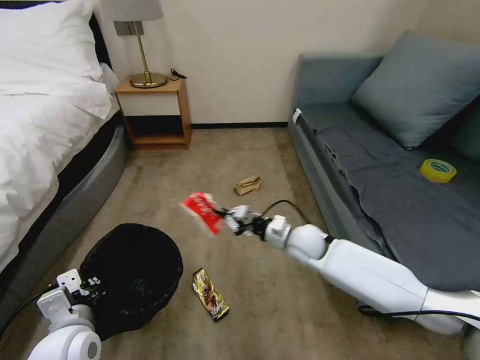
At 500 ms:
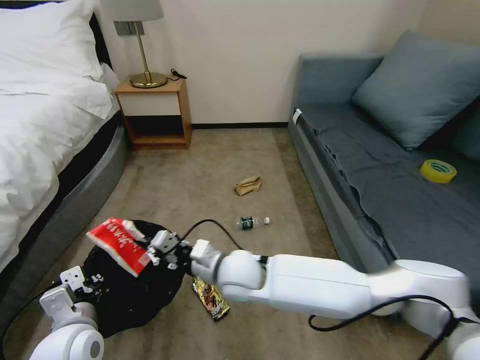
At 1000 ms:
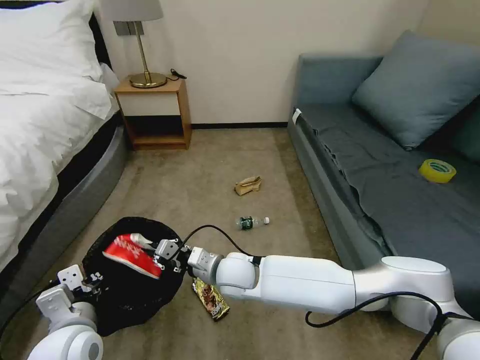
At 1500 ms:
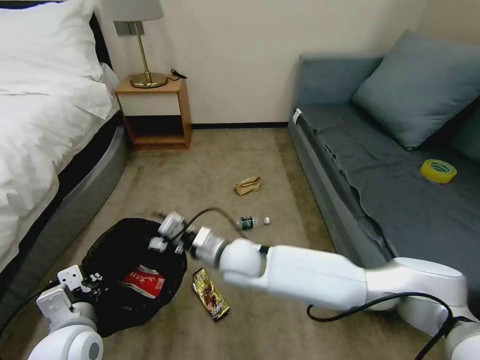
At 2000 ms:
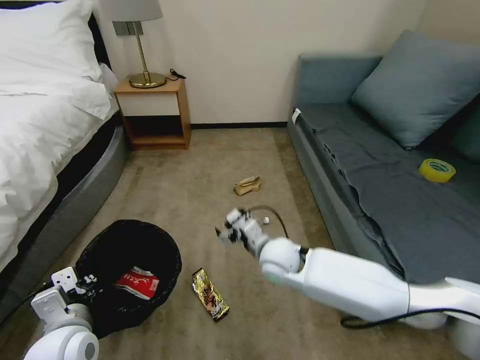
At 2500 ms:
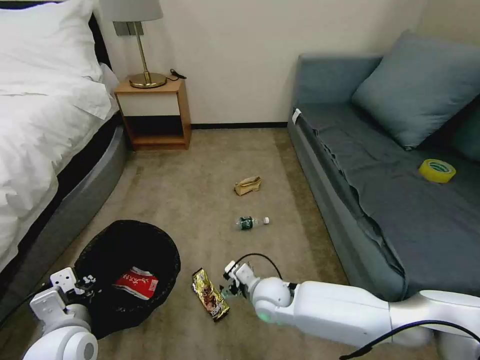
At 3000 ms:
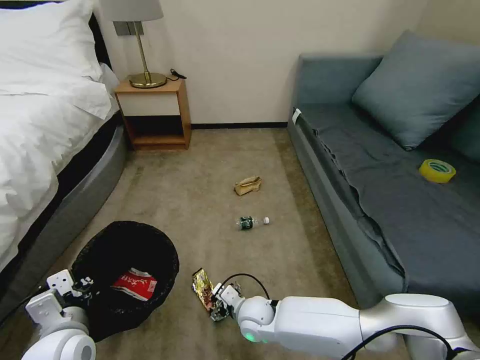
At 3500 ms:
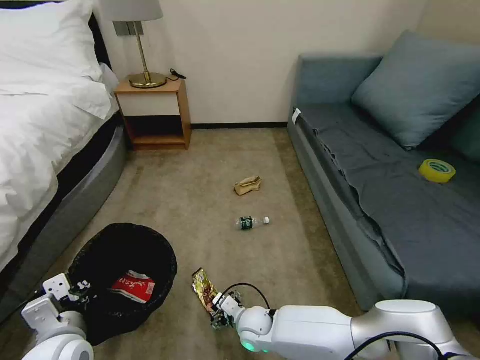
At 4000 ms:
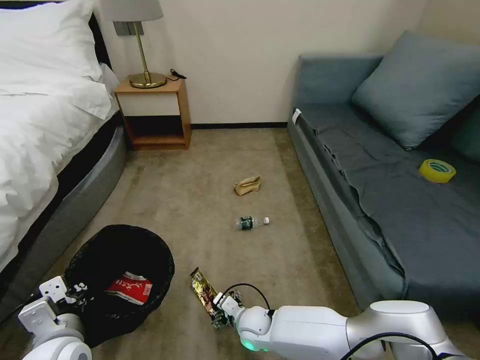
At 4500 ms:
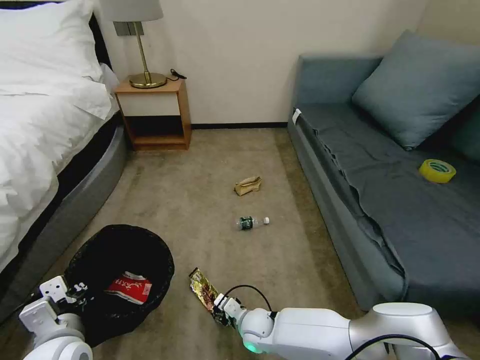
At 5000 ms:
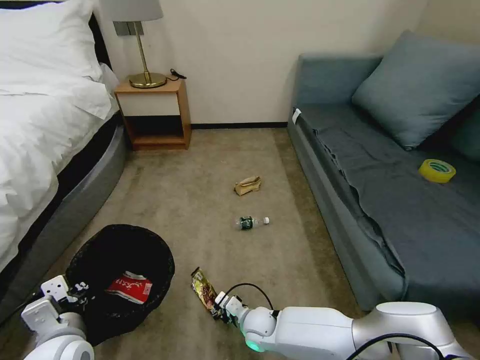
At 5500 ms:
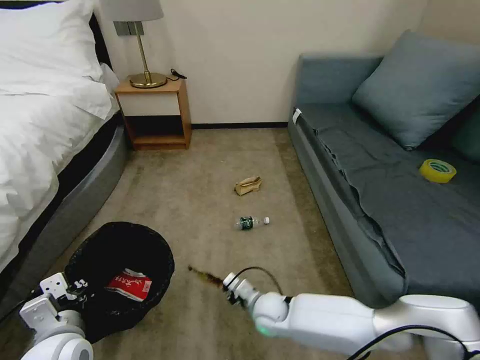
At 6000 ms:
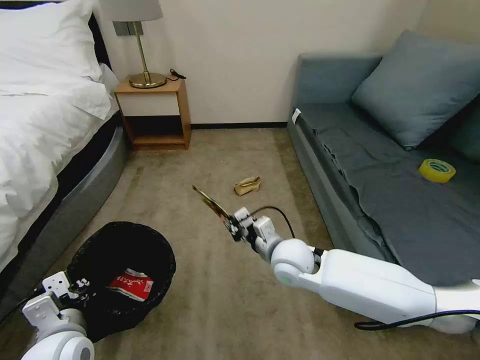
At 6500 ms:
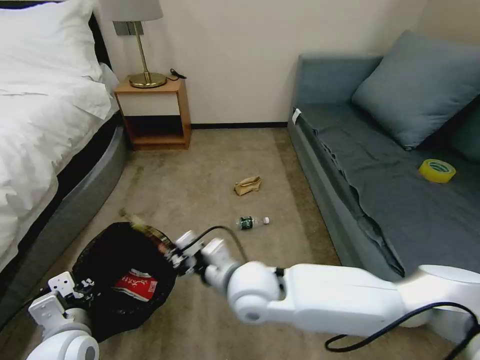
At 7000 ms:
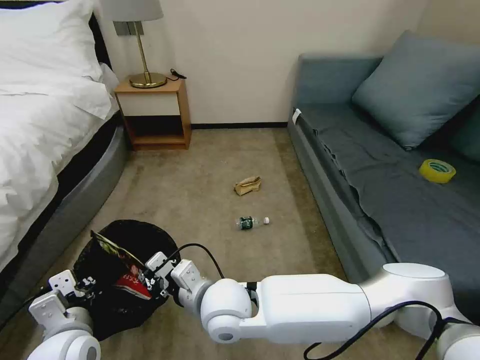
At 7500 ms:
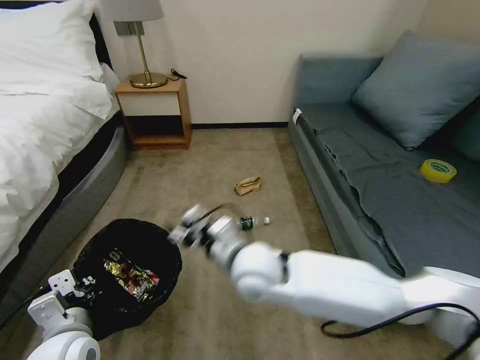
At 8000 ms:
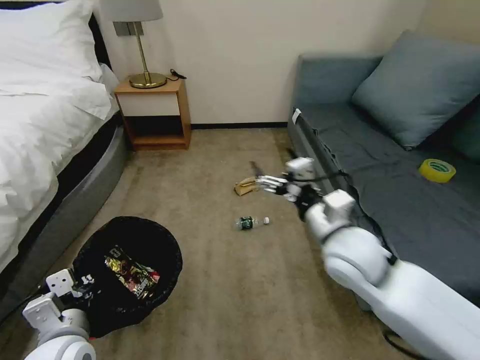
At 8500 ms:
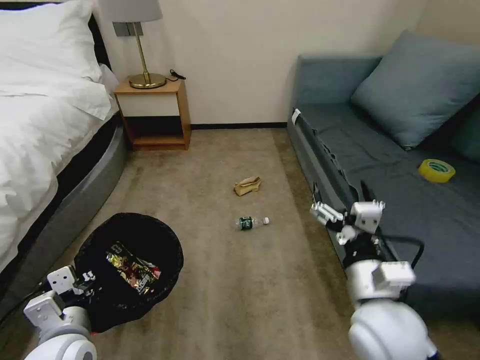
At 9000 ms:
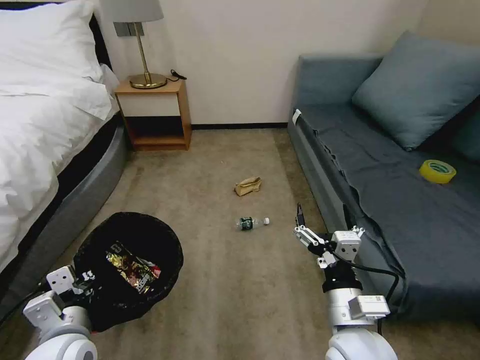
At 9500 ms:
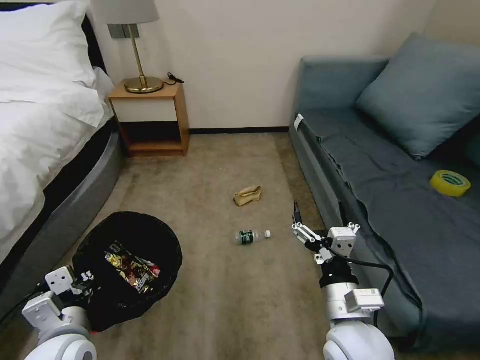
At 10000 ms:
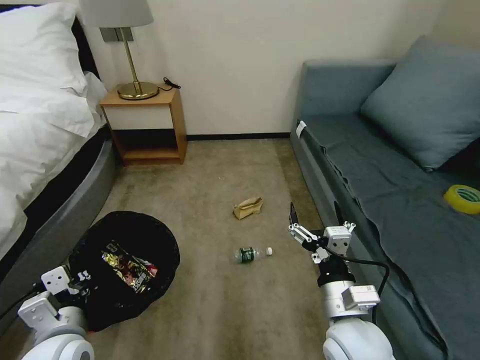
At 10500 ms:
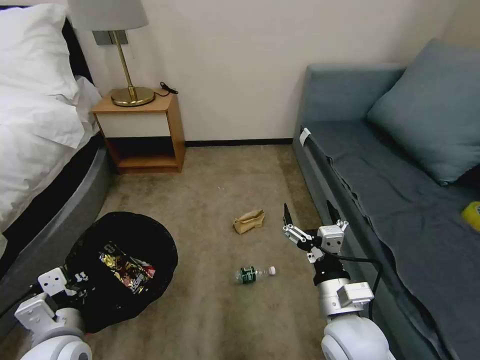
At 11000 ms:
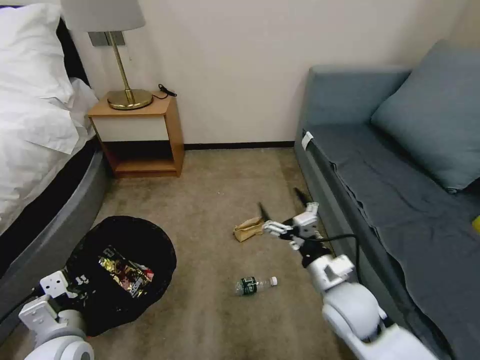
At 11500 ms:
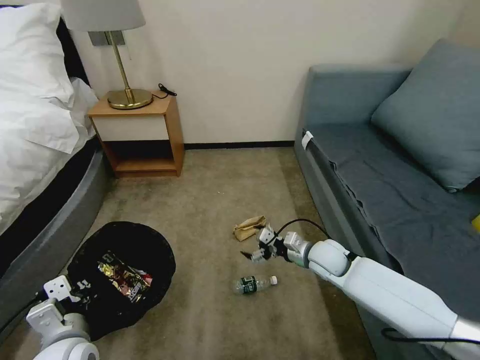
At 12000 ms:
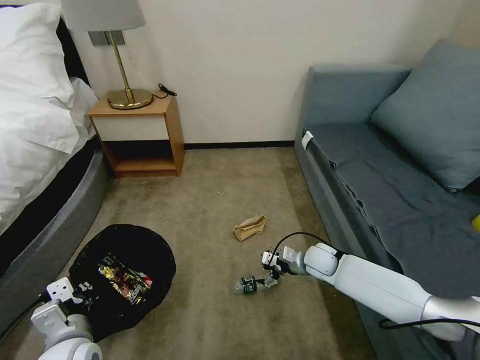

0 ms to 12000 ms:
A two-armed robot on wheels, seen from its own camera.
Task of the whole recording: Pick up the trash bin, then pick up the garbage on the floor and place it into the trash bin.
0 ms to 2000 ms: The right gripper moves to the left and backward, approximately 10 cm, and opens up.
2000 ms to 4000 ms: The right gripper goes roughly 20 cm downward and backward.
4000 ms to 6000 ms: The right gripper shifts some 20 cm upward, and closes.
6000 ms to 8000 ms: The right gripper shifts some 10 cm upward, reaches approximately 15 cm to the left, then returns, and opens.
8000 ms to 10000 ms: The right gripper goes some 15 cm backward and downward.
10000 ms to 12000 ms: The right gripper shifts approximately 30 cm forward and downward.

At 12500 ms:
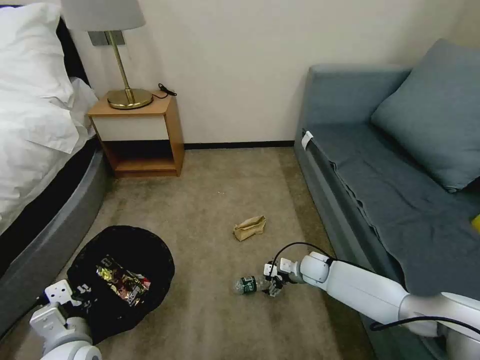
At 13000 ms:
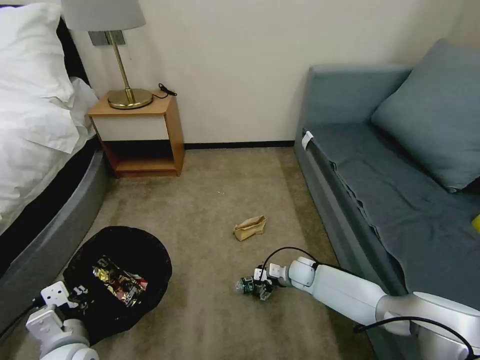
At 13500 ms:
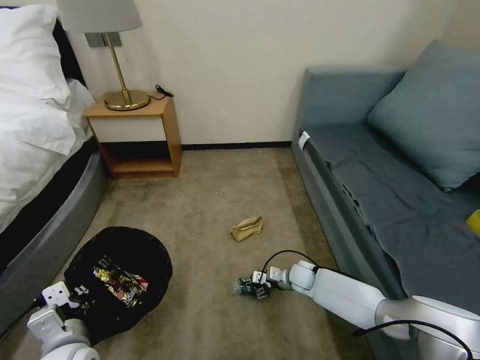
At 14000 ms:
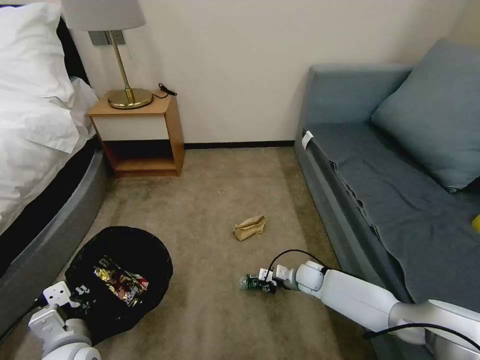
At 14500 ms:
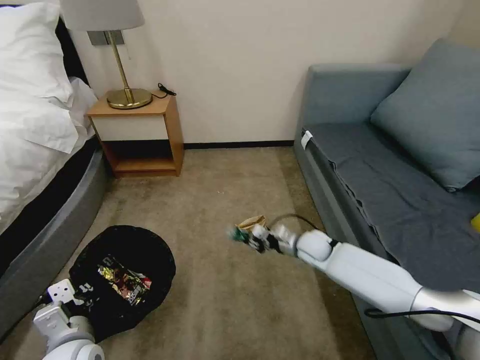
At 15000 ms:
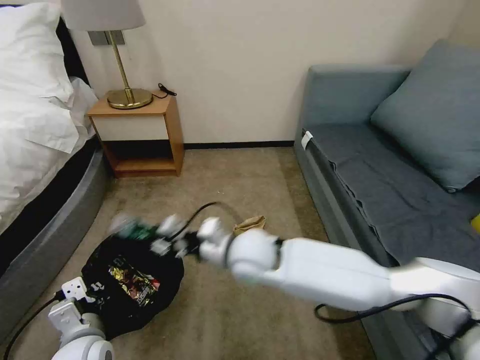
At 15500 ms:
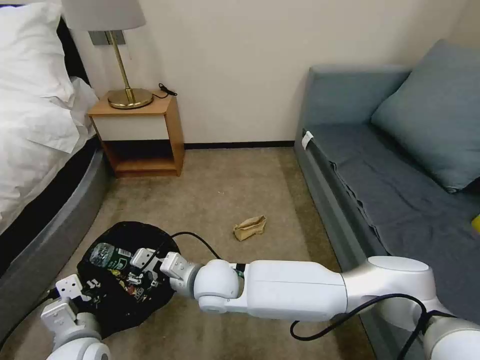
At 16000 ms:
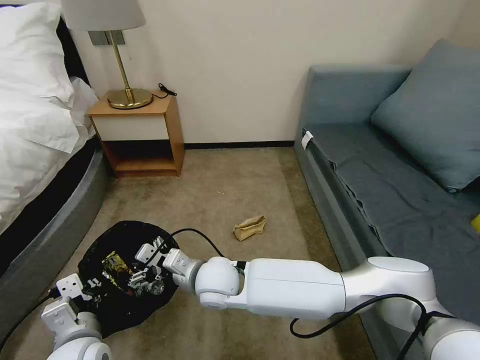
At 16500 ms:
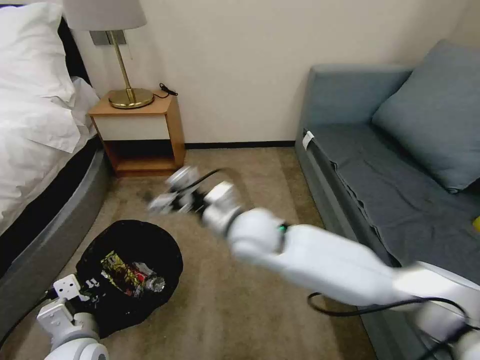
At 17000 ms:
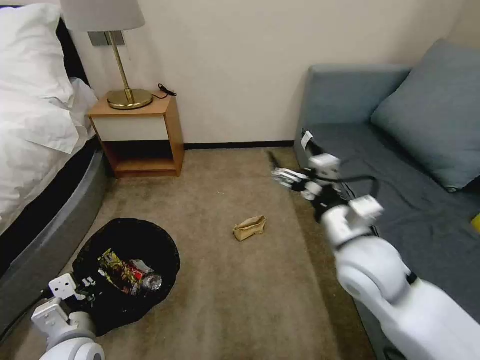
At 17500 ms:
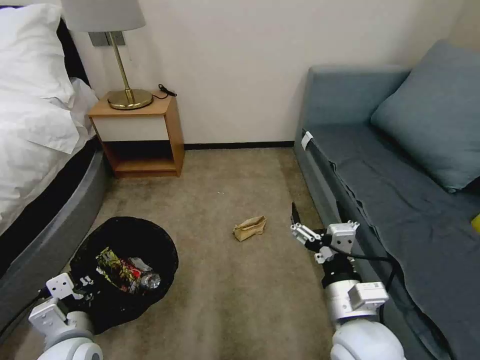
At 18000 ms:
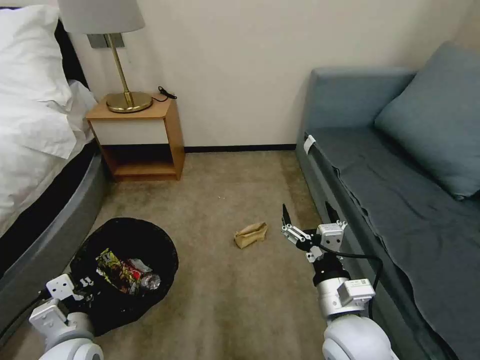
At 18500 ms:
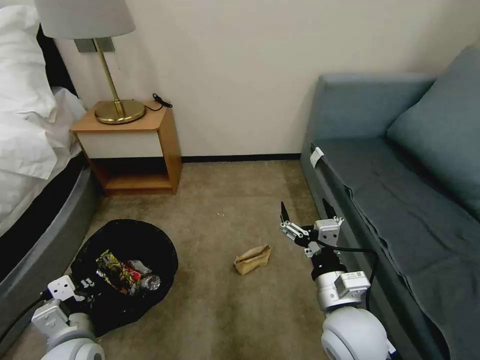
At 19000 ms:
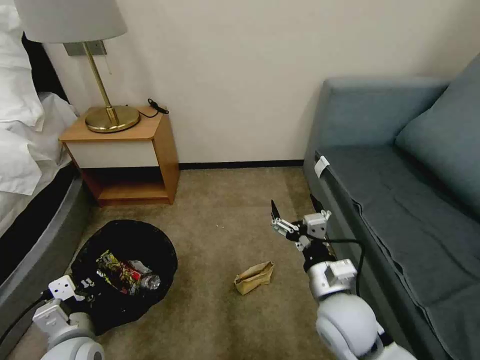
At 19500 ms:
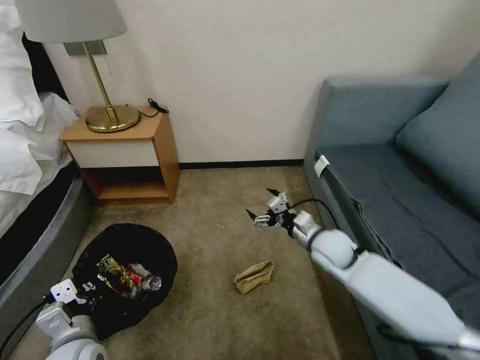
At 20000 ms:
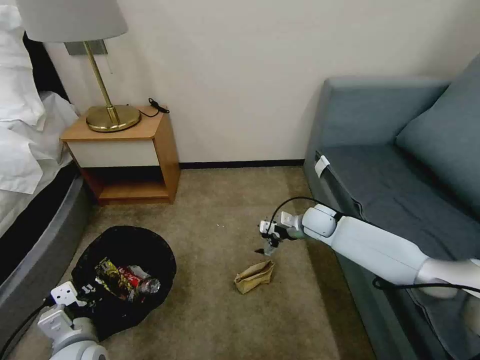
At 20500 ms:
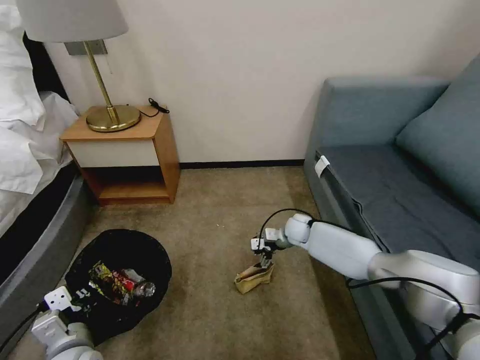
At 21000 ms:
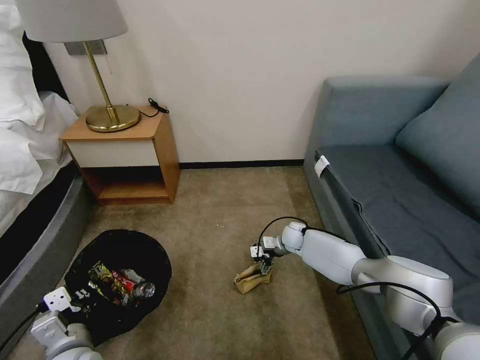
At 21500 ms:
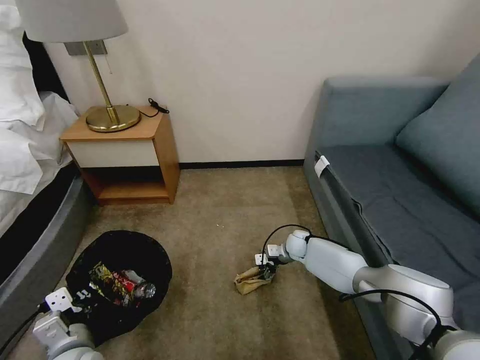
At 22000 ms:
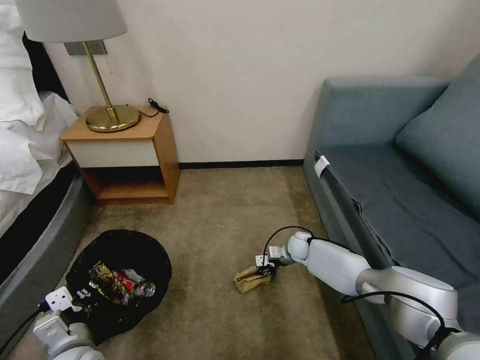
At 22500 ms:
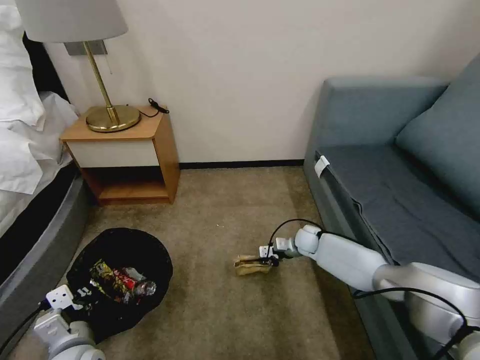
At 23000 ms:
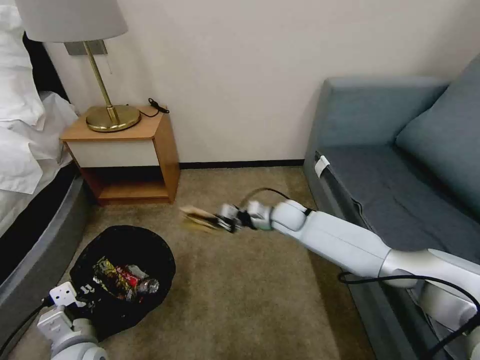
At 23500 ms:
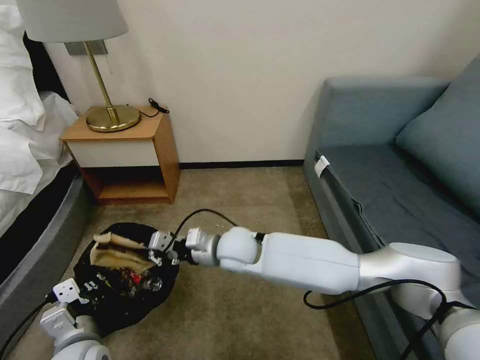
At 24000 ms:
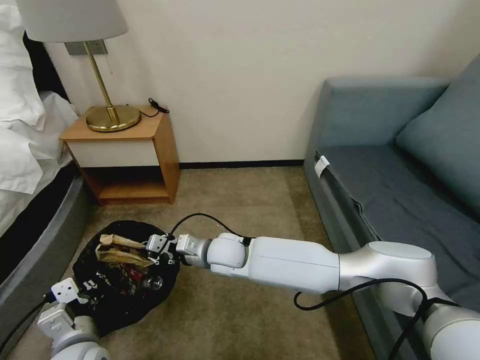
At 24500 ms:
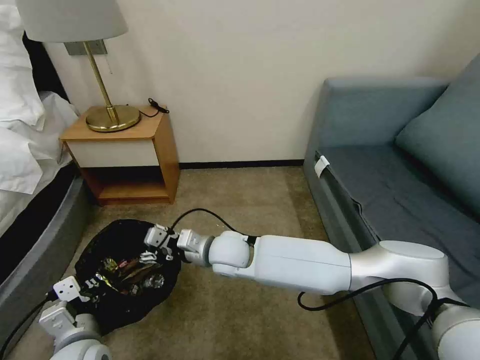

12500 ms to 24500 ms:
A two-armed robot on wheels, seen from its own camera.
Task of the whole recording: Pick up the trash bin, then pick up the garbage on the floor and place it into the trash bin.
12500 ms to 14500 ms: The right gripper shifts approximately 10 cm upward, and closes.
14500 ms to 16500 ms: The right gripper shifts about 30 cm upward, to the left and backward, and opens its fingers.
16500 ms to 18500 ms: The right gripper goes approximately 25 cm to the right, backward and downward.
18500 ms to 20500 ms: The right gripper is displaced forward and downward by about 35 cm.
20500 ms to 22500 ms: The right gripper shifts by roughly 5 cm, and closes its fingers.
22500 ms to 24500 ms: The right gripper shifts some 35 cm to the left, upward and backward, and opens up.

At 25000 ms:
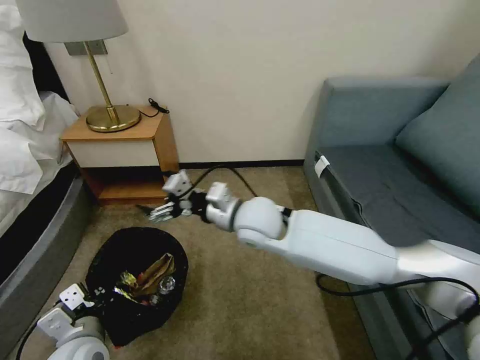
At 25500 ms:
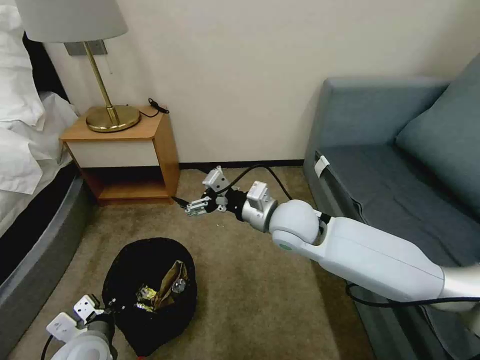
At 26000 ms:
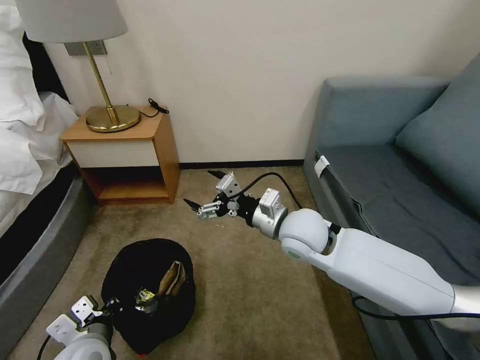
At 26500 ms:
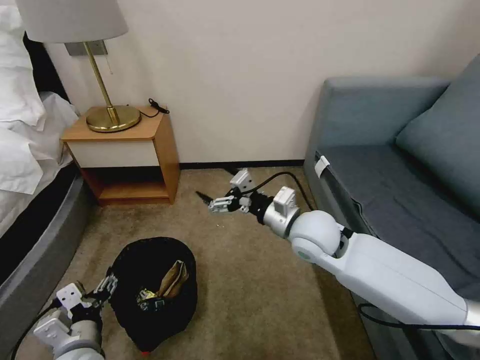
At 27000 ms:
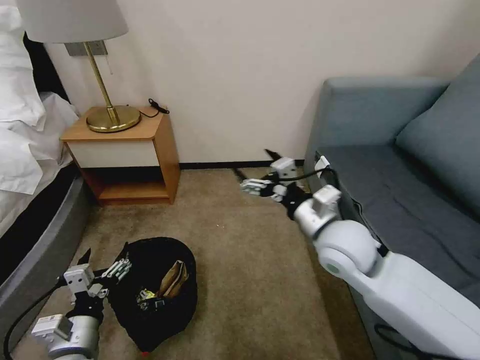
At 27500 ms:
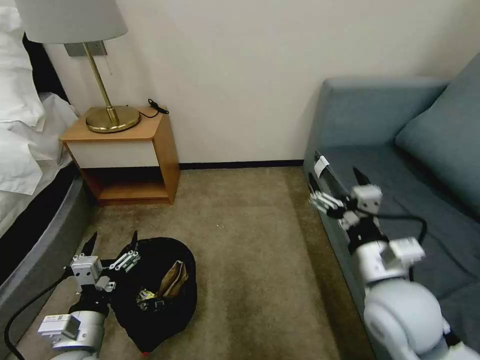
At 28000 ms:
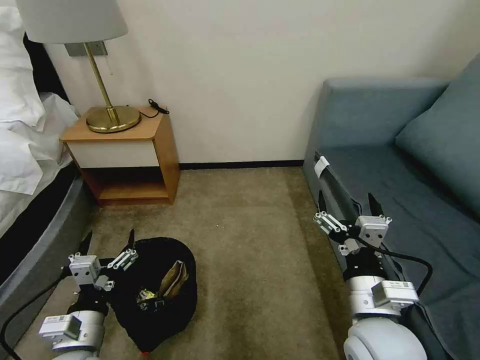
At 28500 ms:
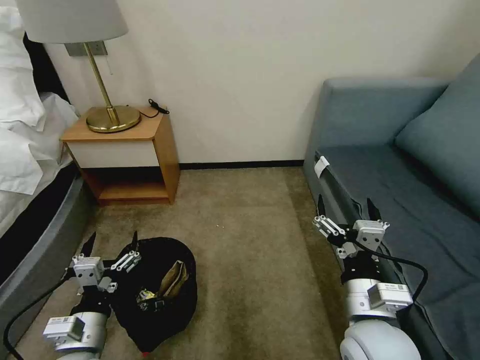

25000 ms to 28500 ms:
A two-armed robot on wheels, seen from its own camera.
Task of the whole recording: Pick up the trash bin, then pick up the garbage on the floor and place it into the trash bin.
25000 ms to 27000 ms: The right gripper goes roughly 15 cm to the right and backward. The left gripper opens.
27000 ms to 28500 ms: The right gripper travels backward by roughly 15 cm.
